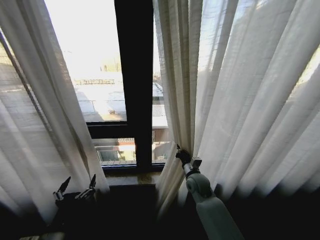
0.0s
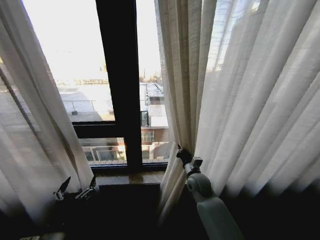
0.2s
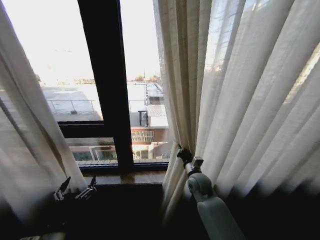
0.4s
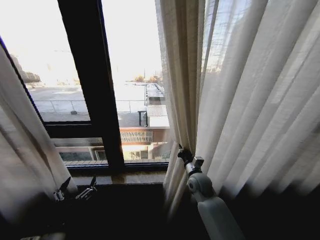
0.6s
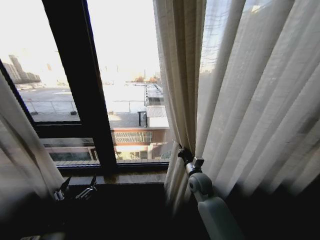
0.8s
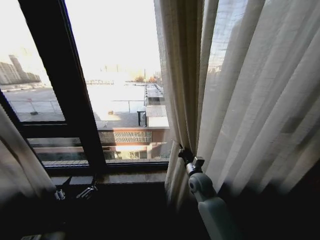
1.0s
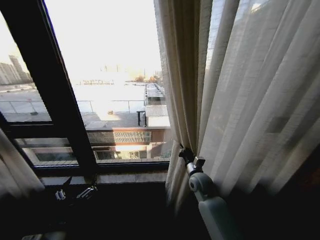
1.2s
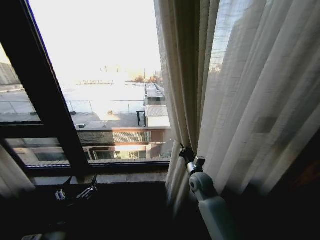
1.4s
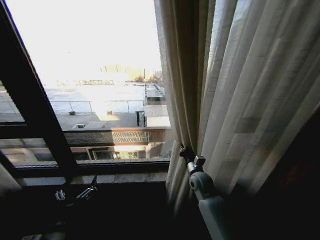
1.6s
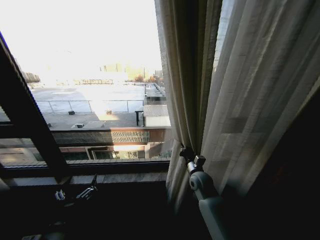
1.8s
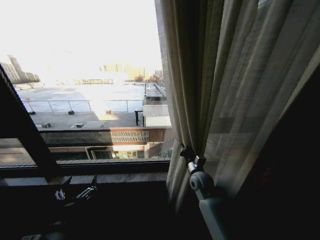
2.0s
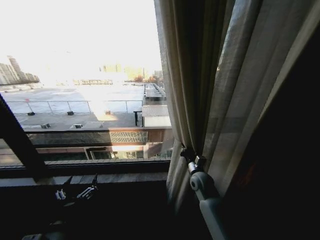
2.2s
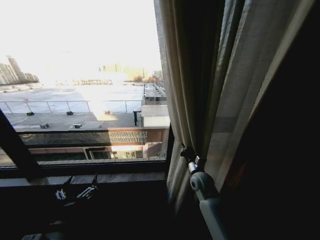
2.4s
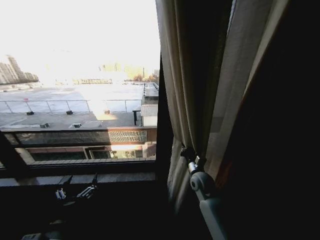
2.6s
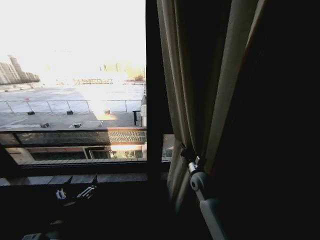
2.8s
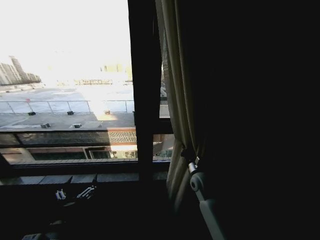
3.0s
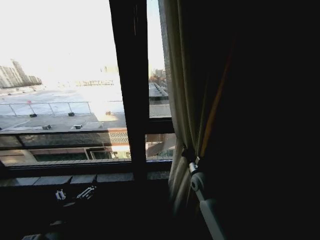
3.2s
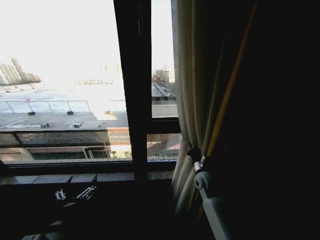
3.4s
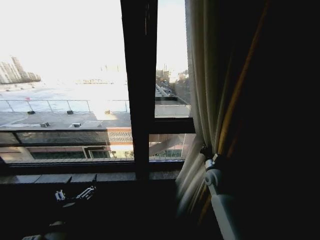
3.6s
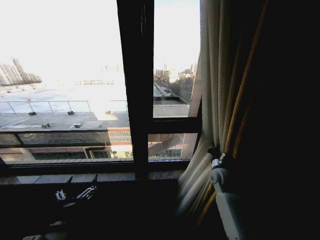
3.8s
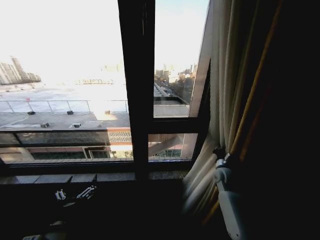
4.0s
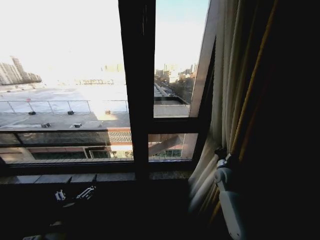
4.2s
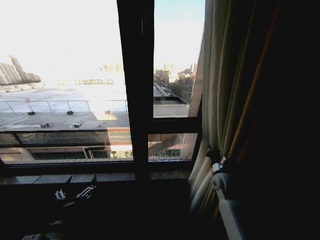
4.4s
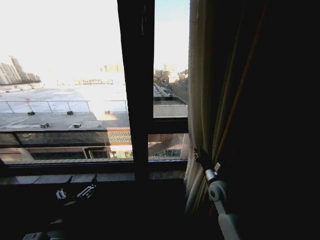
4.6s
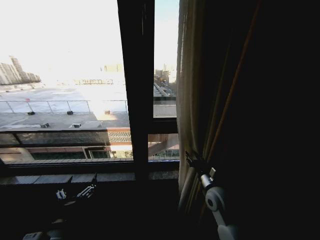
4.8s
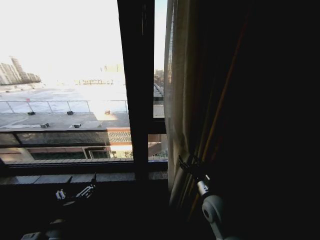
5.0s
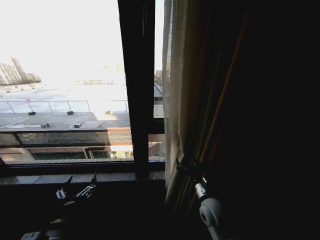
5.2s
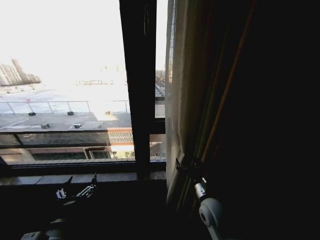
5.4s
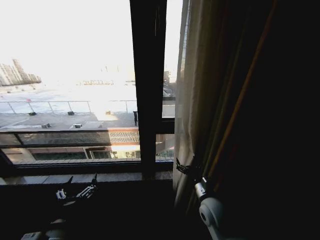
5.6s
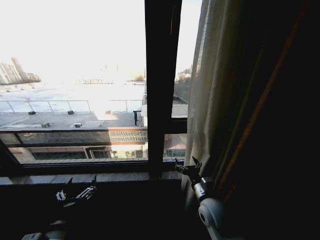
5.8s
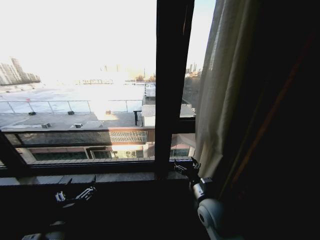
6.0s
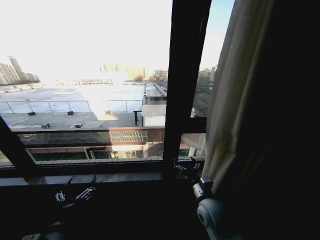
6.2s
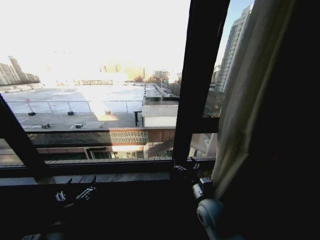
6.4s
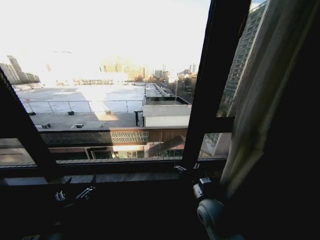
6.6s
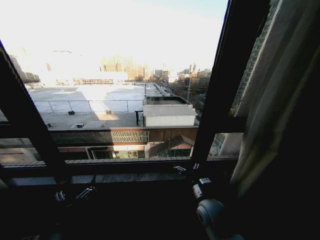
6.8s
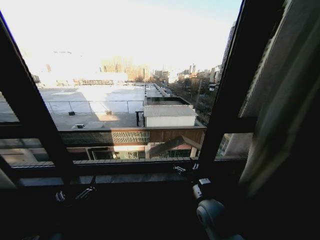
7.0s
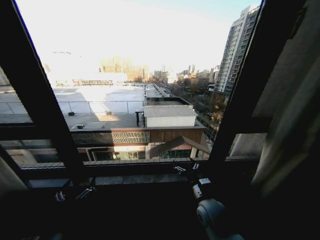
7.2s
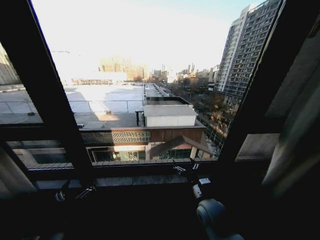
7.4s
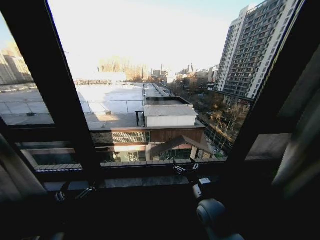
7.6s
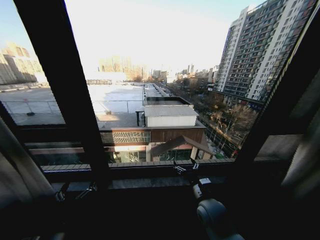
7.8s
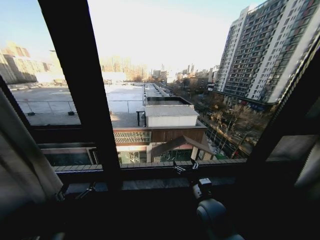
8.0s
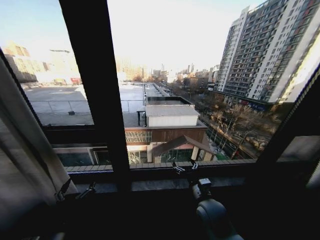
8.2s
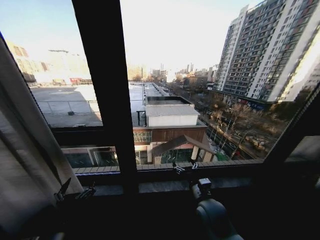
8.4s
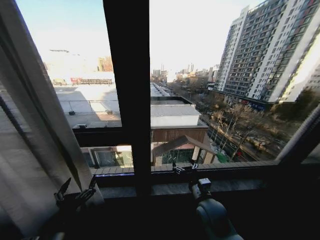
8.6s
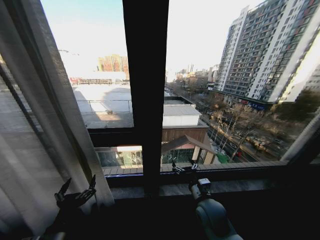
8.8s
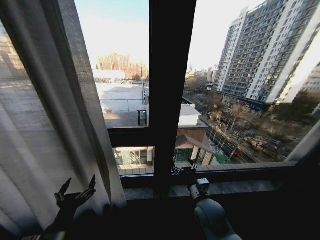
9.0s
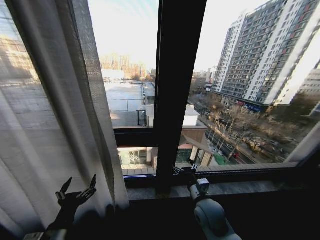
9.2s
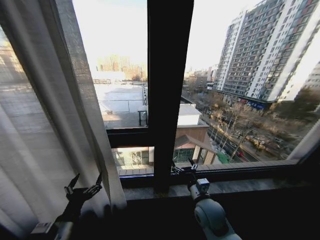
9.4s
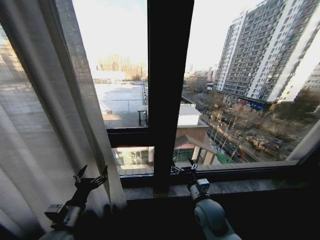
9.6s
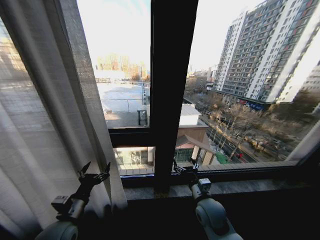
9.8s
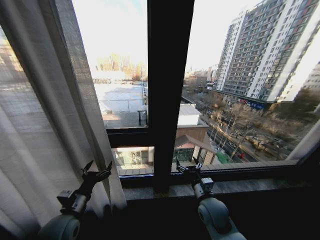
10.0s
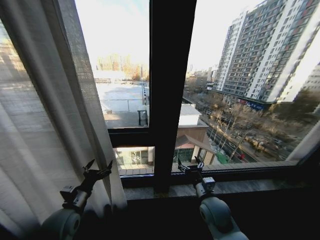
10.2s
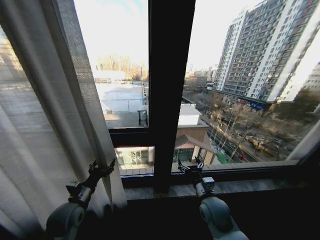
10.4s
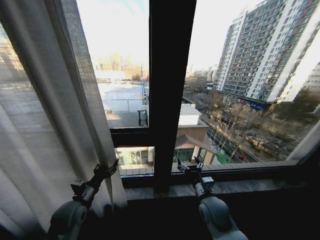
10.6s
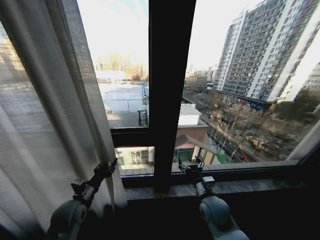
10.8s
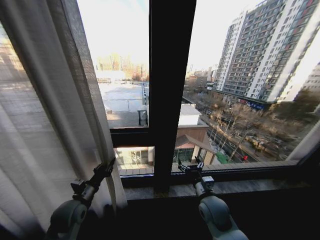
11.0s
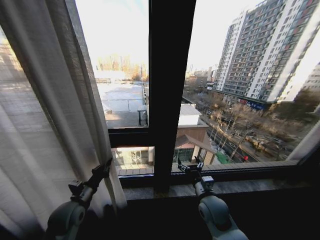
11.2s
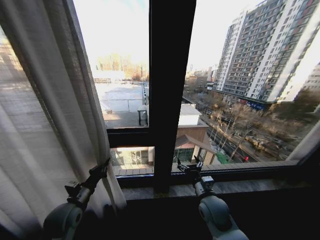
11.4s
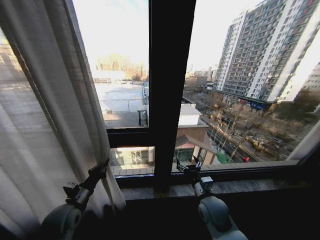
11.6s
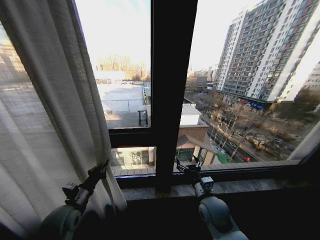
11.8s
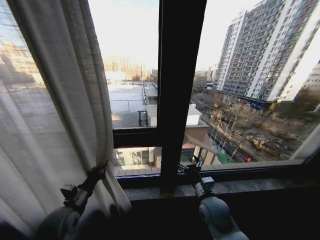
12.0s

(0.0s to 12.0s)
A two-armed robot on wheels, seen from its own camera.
Task of the whole recording: Open the curtains by pulling them apart, changing their state from closed to fully open.
3.0s - 4.4s: The right gripper travels to the right by about 10 cm.
4.4s - 6.0s: The right gripper heads backward and to the left, covering roughly 15 cm, and opens up.
9.0s - 10.4s: The left gripper is displaced forward by about 15 cm.
10.4s - 12.0s: The left gripper closes.

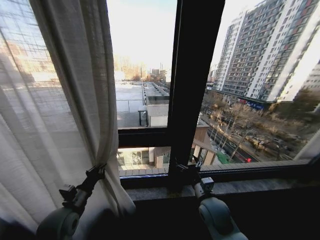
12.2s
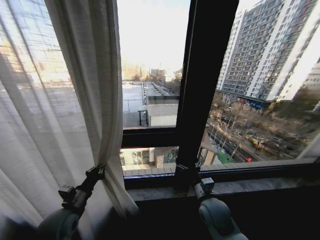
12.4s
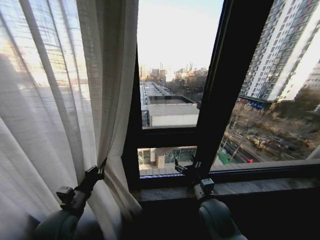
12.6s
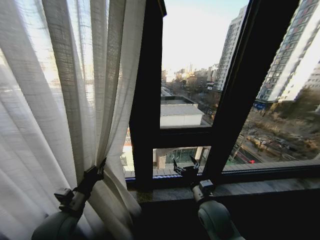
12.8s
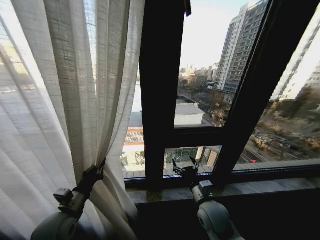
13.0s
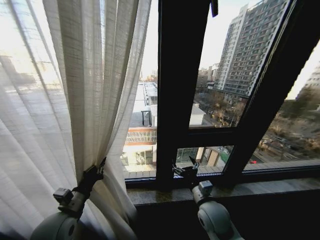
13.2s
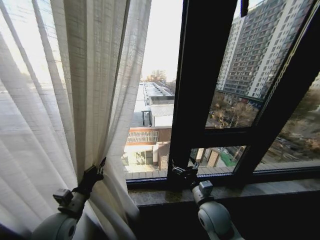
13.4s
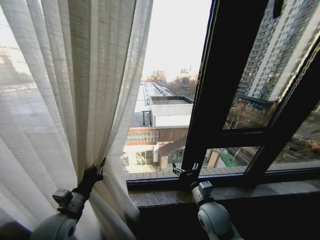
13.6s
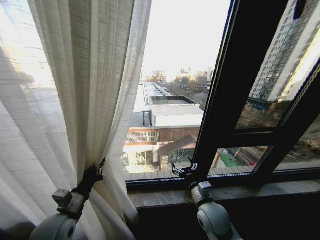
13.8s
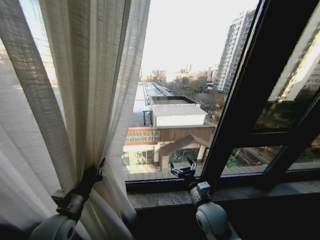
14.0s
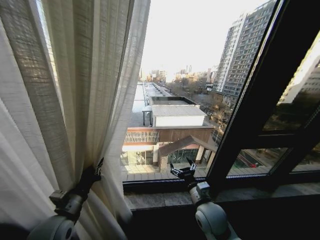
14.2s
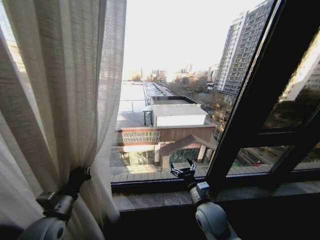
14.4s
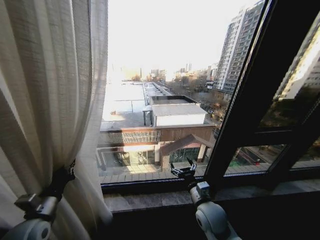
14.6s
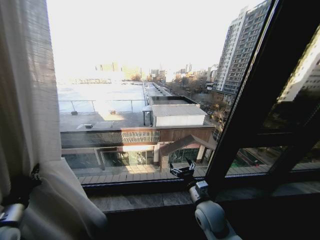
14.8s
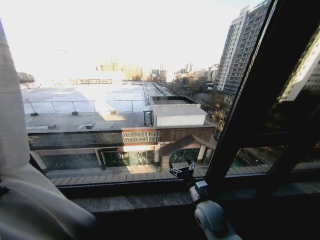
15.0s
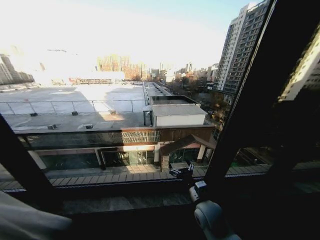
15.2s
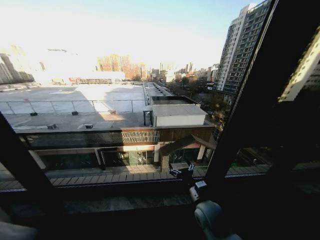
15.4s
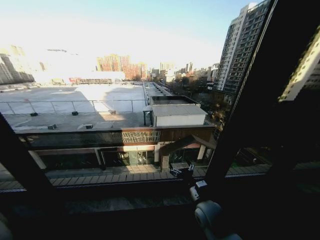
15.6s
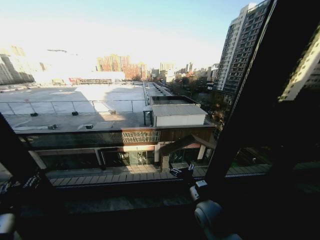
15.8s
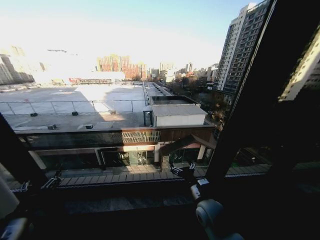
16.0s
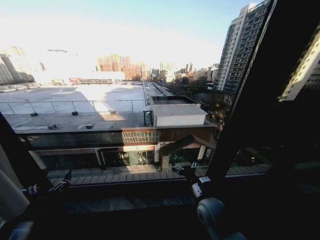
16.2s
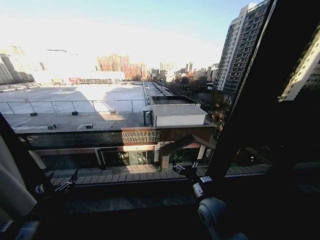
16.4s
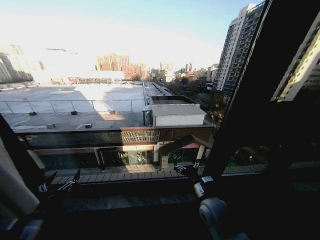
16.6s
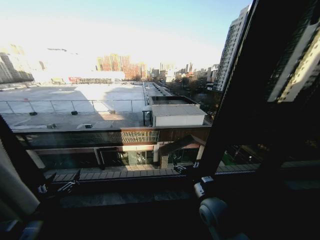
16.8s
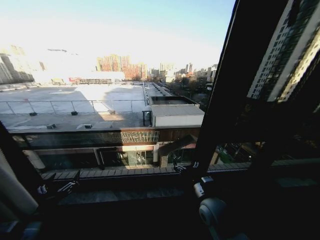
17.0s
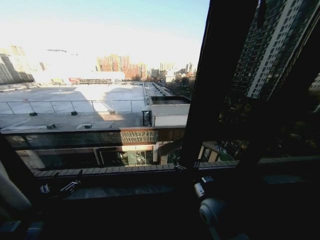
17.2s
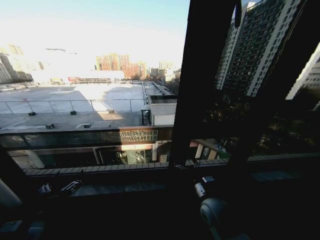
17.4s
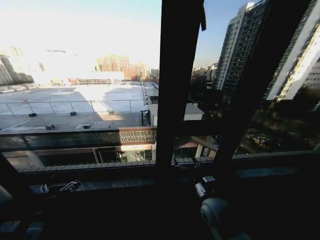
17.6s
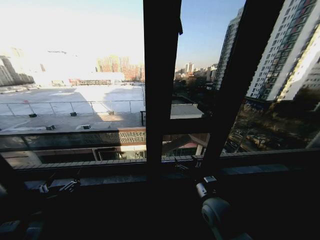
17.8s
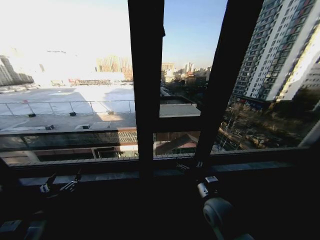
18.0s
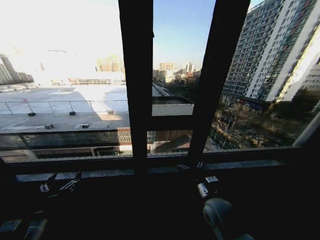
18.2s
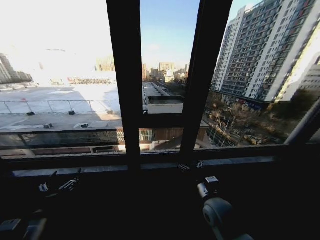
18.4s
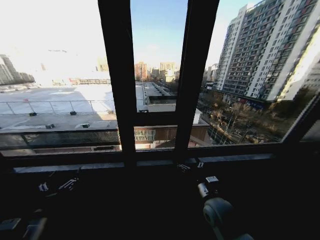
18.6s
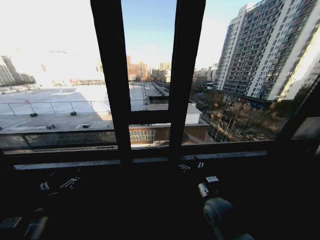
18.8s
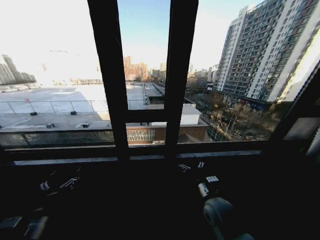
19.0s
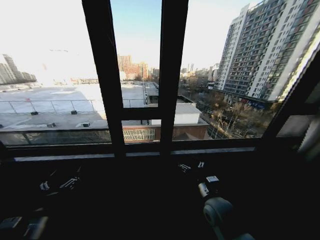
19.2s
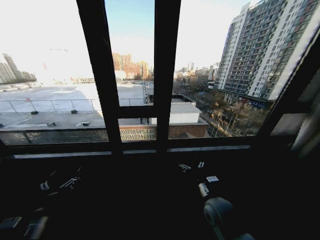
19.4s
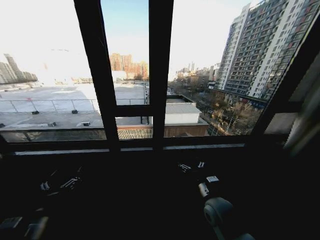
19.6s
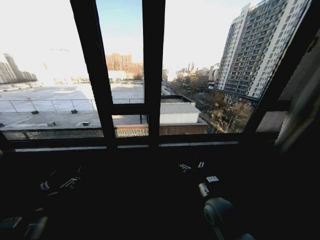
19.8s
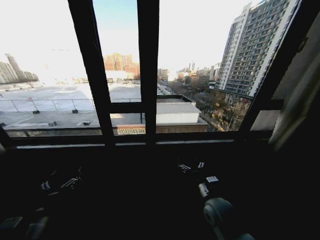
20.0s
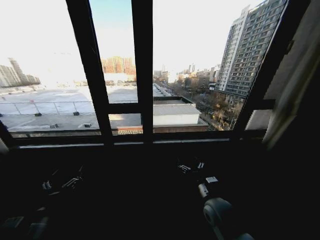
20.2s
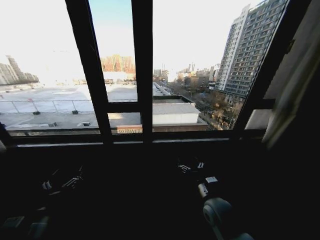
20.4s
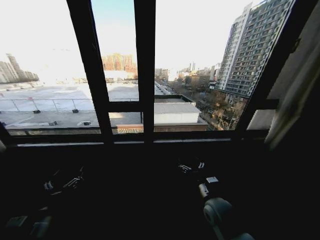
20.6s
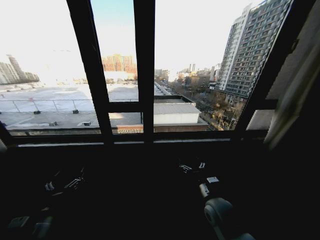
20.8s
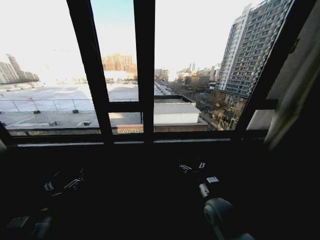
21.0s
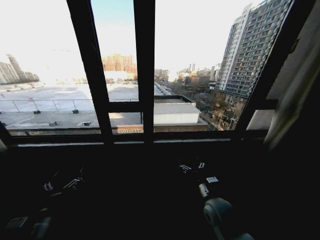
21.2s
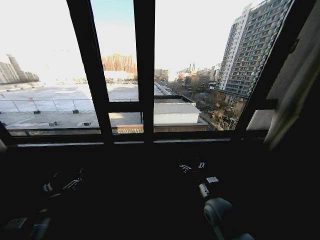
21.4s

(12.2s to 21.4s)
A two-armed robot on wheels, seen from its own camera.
Task of the whole recording: Open the curtains by pulling them apart, changing their state from closed to fully open.
13.8s - 15.2s: The left gripper moves to the left, roughly 25 cm.
15.2s - 16.8s: The left gripper heads to the right, covering some 15 cm, and opens its fingers.
19.8s - 21.4s: The grippers make only small movements.

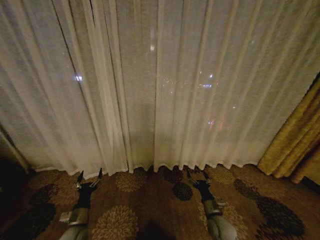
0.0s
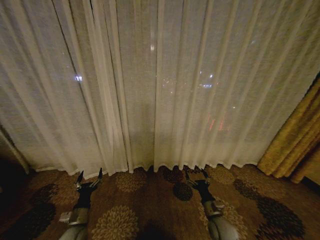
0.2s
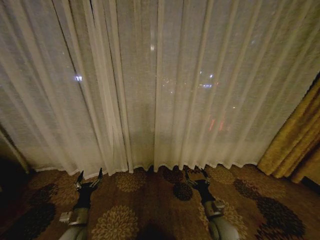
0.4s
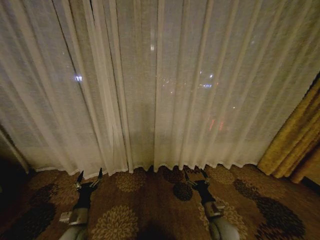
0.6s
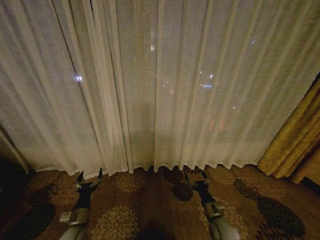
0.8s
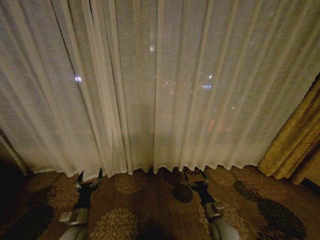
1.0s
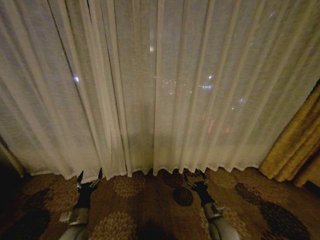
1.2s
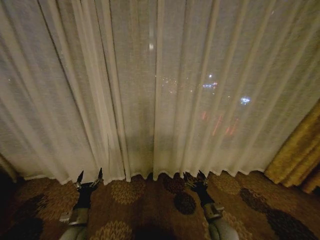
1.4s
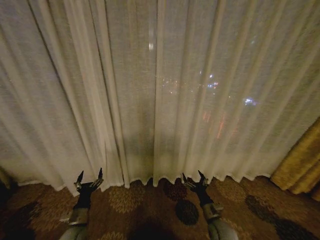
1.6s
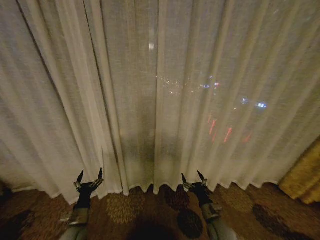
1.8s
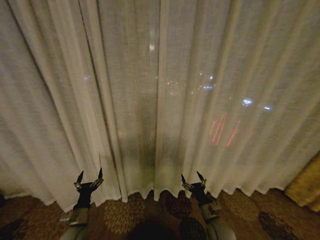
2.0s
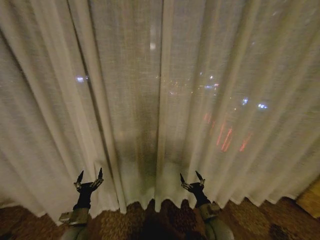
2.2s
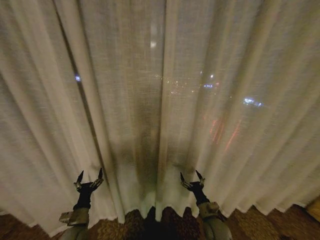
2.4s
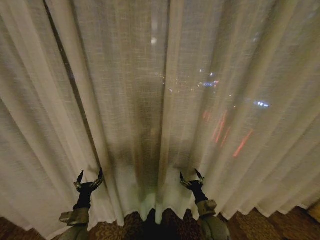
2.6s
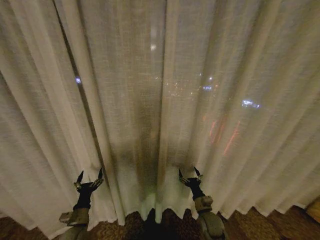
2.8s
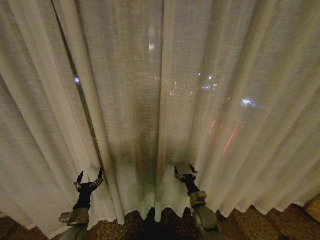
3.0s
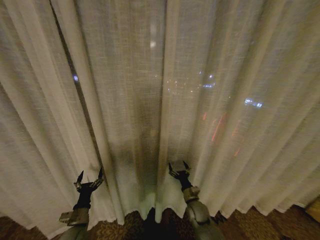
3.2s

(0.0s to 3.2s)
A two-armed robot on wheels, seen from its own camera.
Task of the whole recording: Open the curtains by pulling them apart, changing their state from closed to fully open.
1.6s - 3.2s: The right gripper is displaced forward and to the left by about 10 cm.
